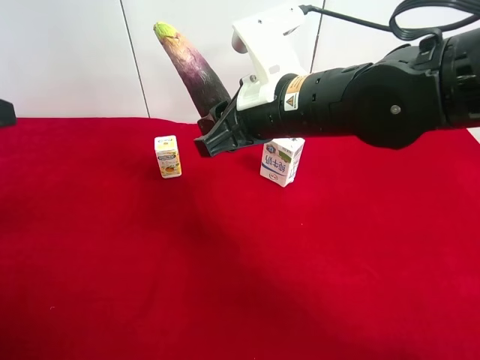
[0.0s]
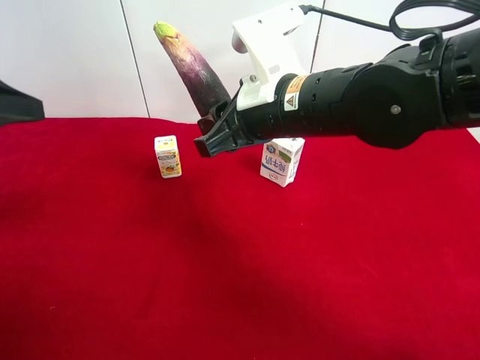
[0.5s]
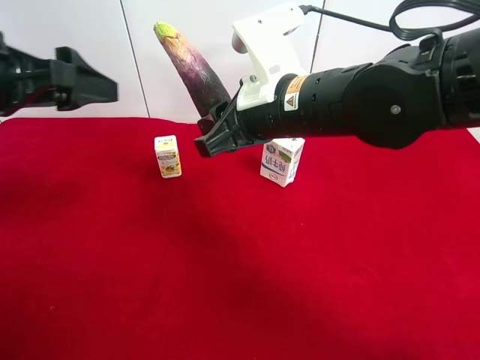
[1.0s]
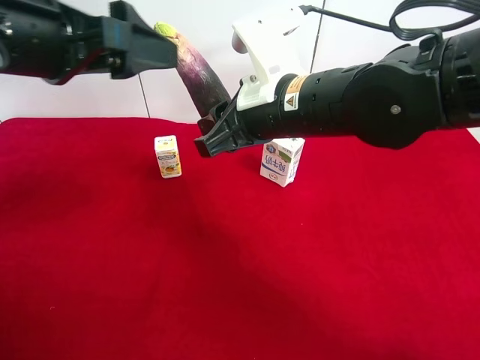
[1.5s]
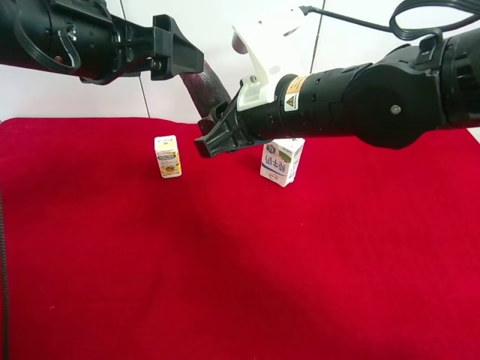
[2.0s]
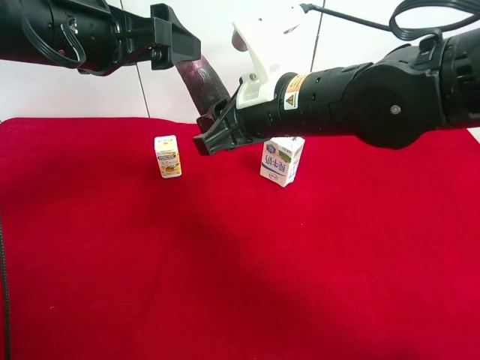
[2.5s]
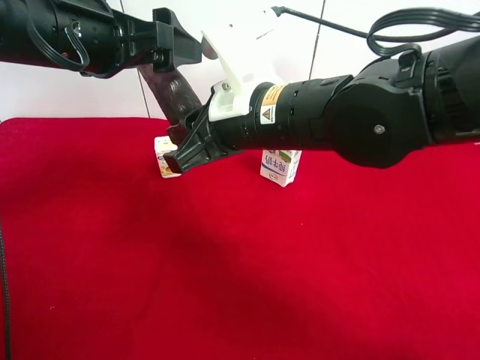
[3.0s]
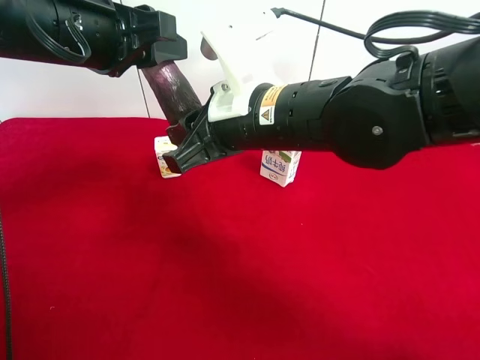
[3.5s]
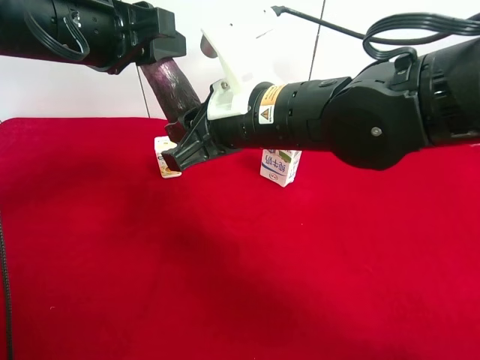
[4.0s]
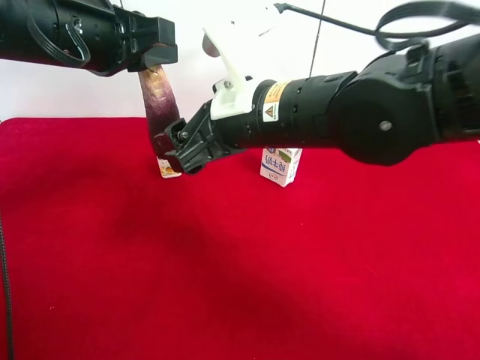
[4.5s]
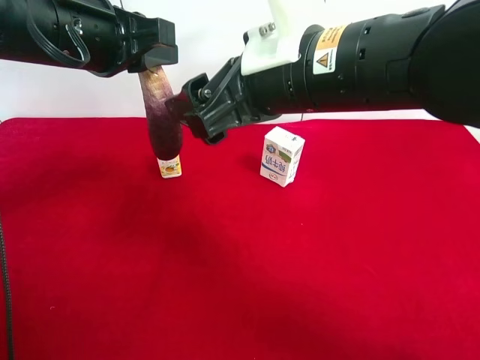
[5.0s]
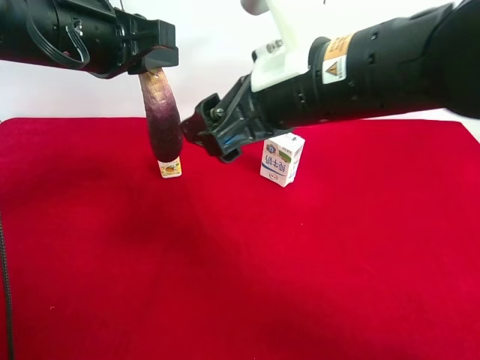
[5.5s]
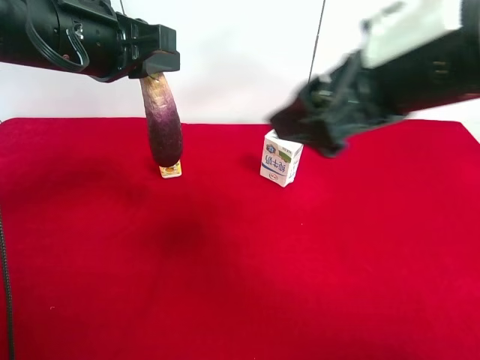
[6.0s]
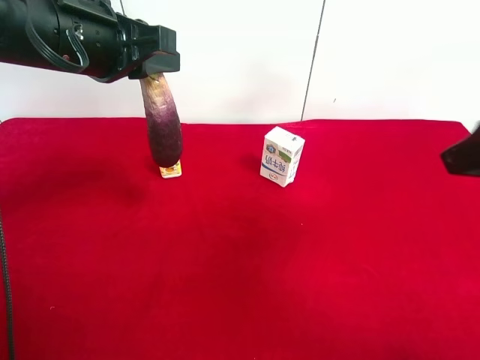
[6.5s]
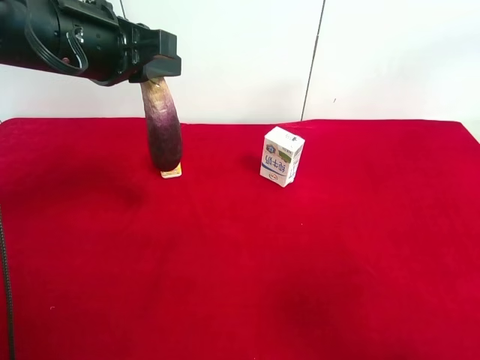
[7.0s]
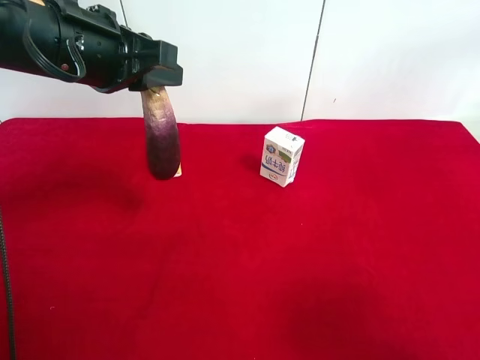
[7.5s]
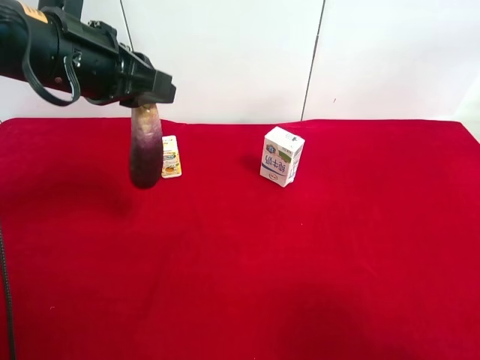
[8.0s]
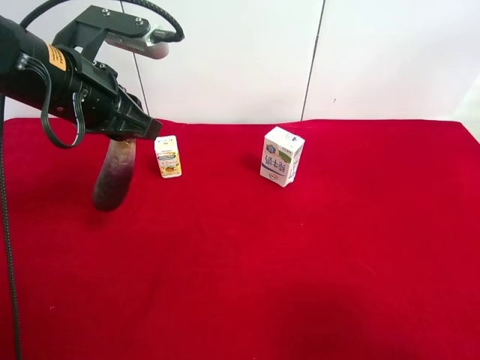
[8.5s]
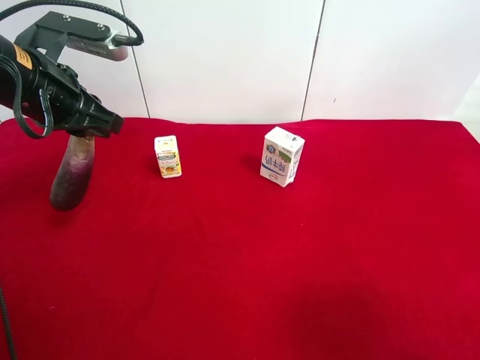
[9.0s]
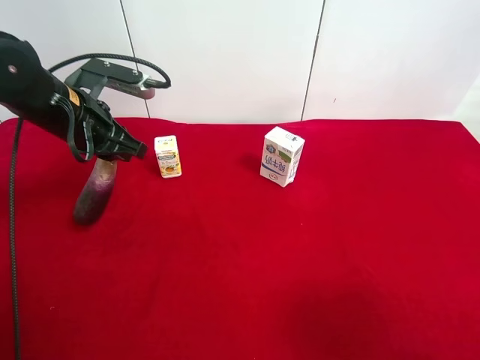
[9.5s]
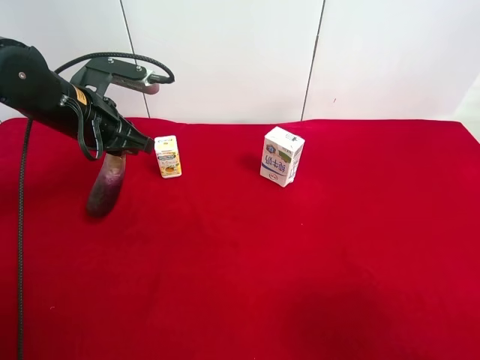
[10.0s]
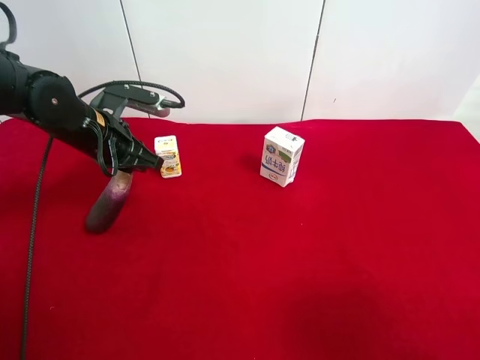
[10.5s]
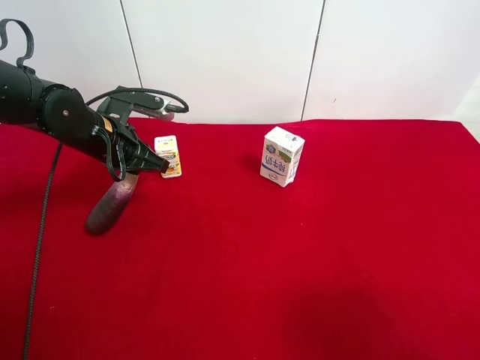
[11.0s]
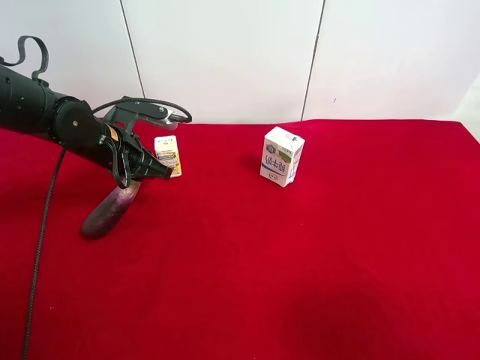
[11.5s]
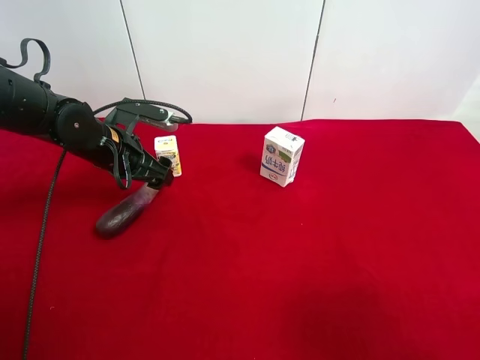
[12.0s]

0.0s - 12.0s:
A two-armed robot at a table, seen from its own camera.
Task of the whole recording: use the right gripper to pick up the item and transfer it from the right gripper to the left gripper.
Step, 0.0s - 4.0s: Pass the eggplant to the left gripper.
Step, 4.5s - 11.5s: The left gripper places eggplant on the left side of the table.
0.0s - 2.0s: The left gripper travels to the right and forward by roughly 20 cm.
2.0s - 4.0s: The left gripper closes up.
4.0s - 6.0s: The right gripper shifts roughly 15 cm to the right, upward and backward, and opens.
6.0s - 8.0s: The right gripper moves backward, to the right and downward, about 20 cm.
8.0s - 10.0s: The left gripper shifts about 10 cm downward and forward.
10.0s - 12.0s: The left gripper travels downward by roughly 5 cm, and opens.

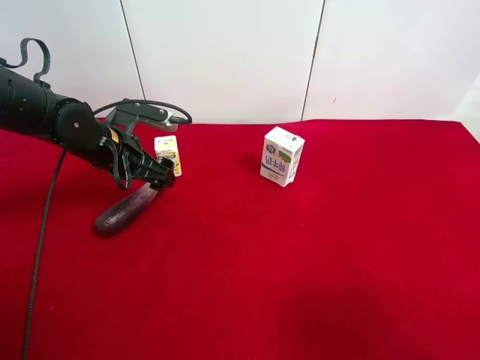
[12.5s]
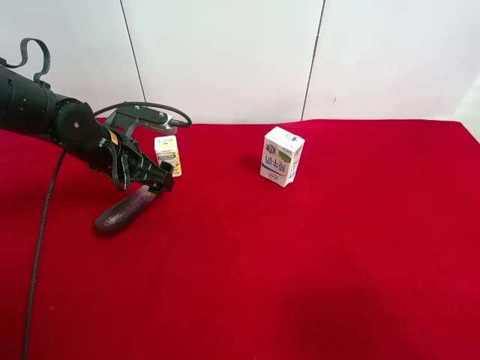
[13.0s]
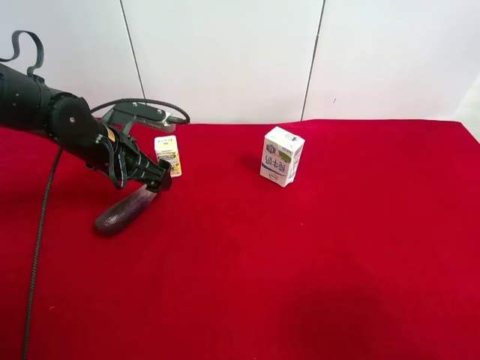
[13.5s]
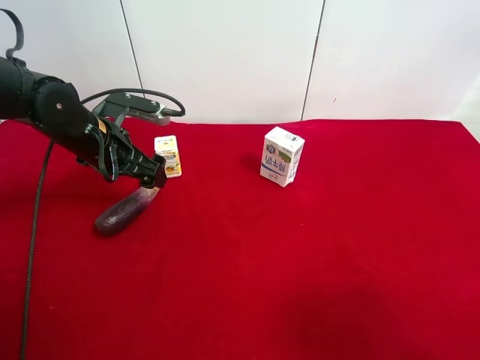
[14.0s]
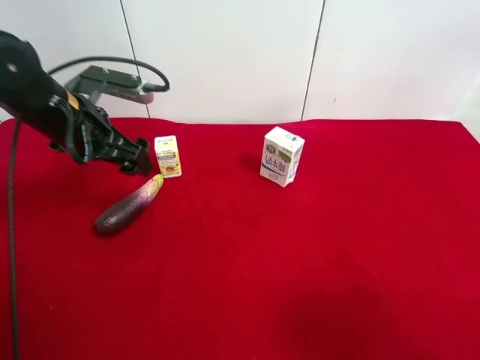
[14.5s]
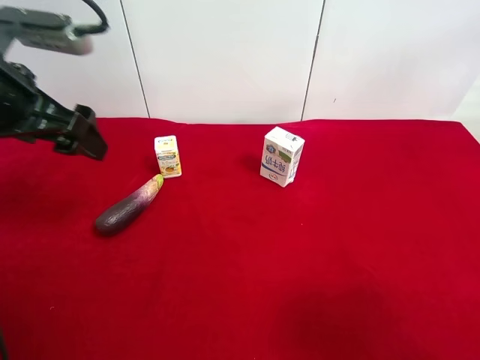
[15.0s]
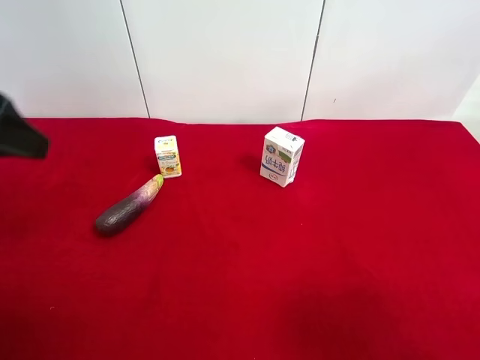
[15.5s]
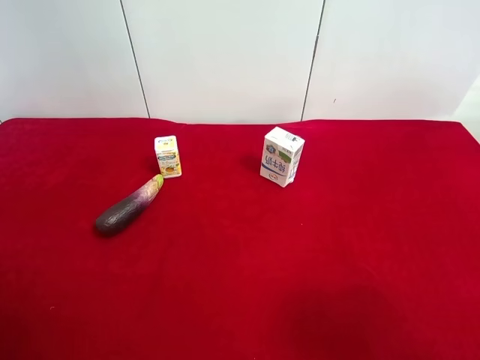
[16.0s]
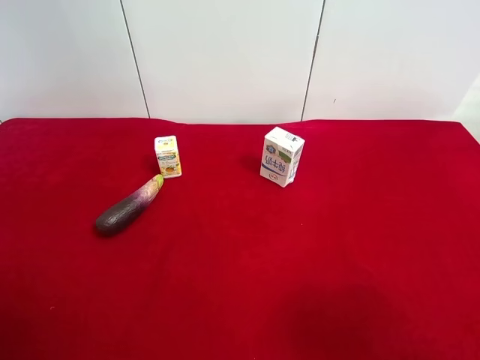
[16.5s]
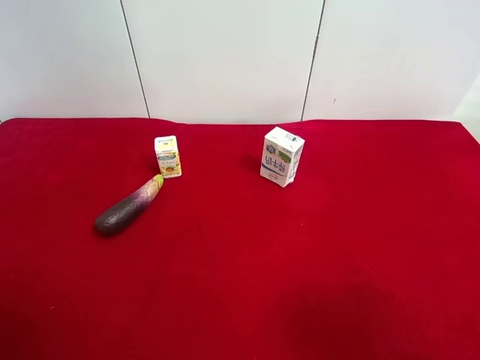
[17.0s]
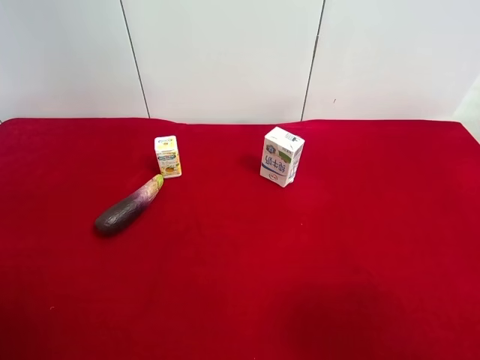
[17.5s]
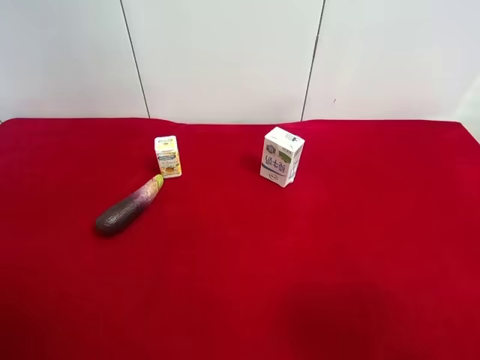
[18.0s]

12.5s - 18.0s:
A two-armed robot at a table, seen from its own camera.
Task of the whole recording: use the right gripper to pick up the item and transfer it from the right gripper to the left gripper.
12.5s - 14.5s: The left gripper moves upward, roughly 10 cm; the right gripper opens.
14.5s - 16.0s: The left gripper goes about 25 cm backward.
